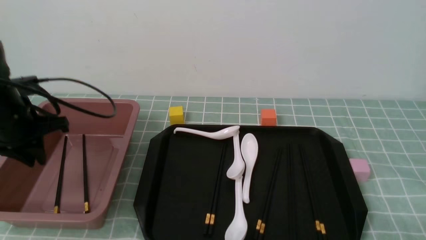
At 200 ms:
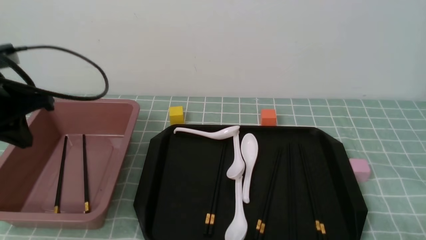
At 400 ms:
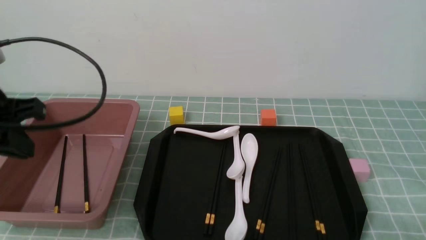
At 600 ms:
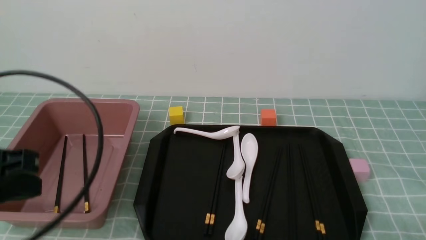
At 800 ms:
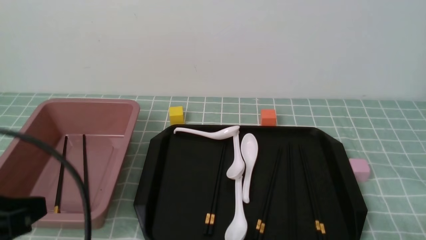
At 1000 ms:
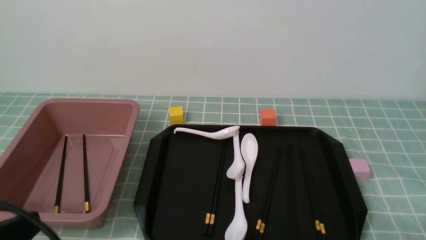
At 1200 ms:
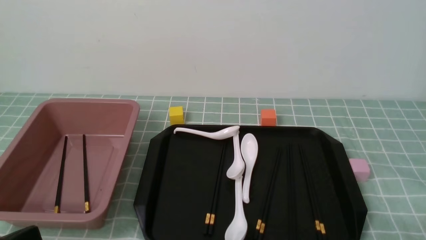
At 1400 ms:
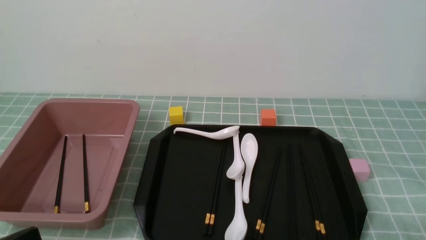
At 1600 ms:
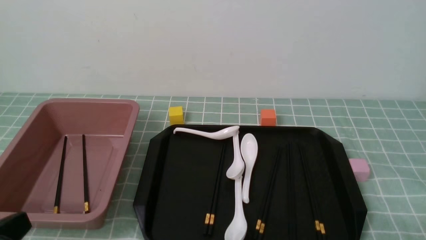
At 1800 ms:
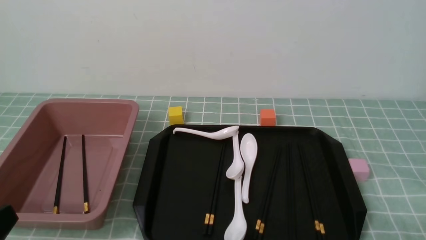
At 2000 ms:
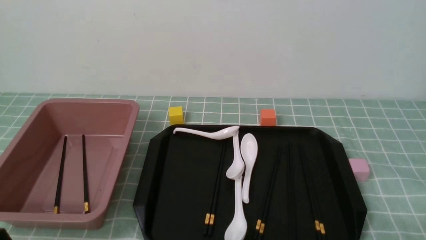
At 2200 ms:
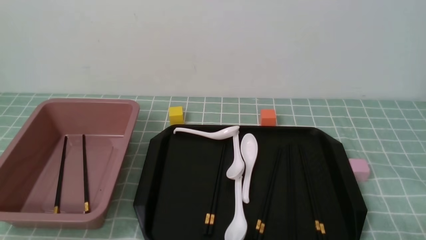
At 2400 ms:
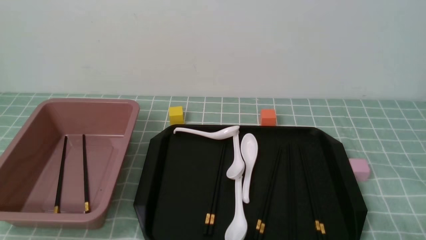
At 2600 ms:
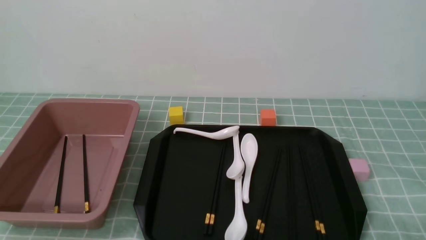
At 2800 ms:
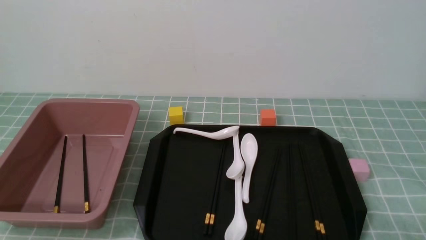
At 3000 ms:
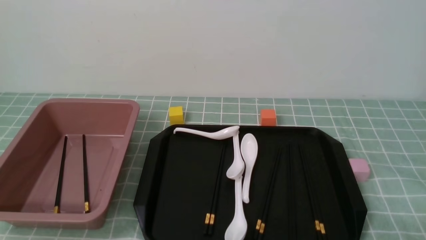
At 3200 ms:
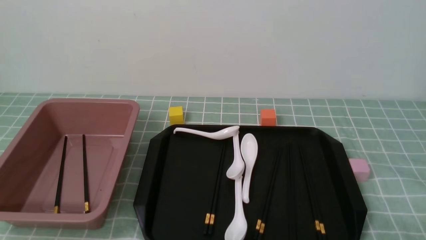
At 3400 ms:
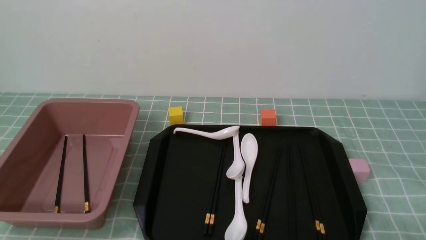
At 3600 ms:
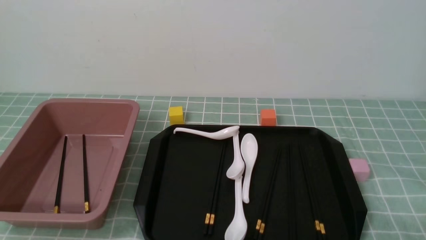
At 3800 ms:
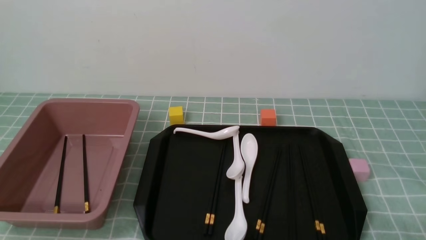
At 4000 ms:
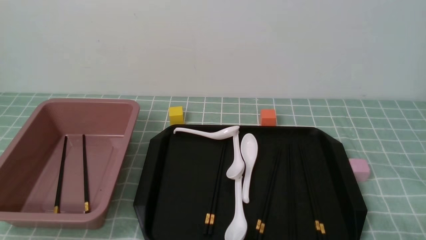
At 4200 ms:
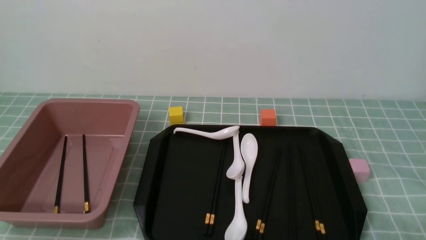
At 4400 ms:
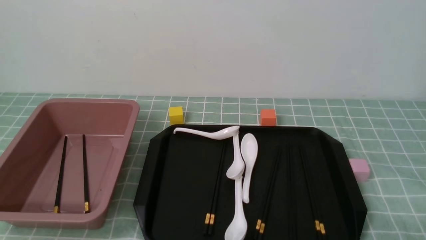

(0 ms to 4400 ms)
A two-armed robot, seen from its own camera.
0 ms - 1400 ms: The left gripper moves backward, approximately 30 cm, and closes up.
3000 ms - 4400 ms: Both grippers stay put.
